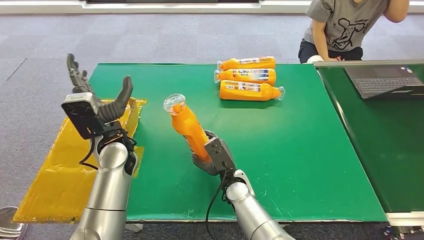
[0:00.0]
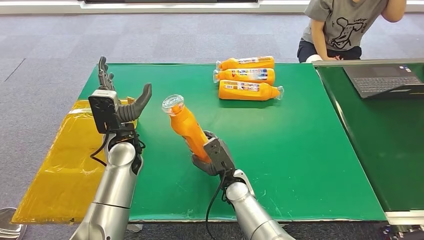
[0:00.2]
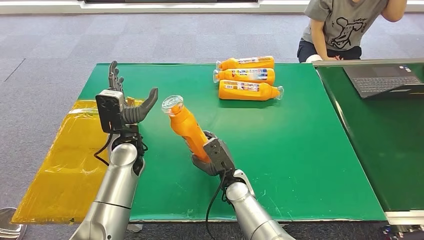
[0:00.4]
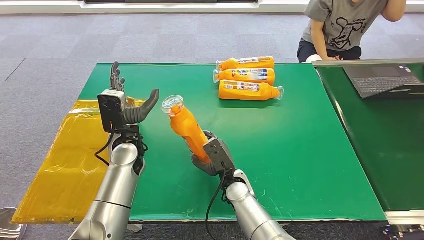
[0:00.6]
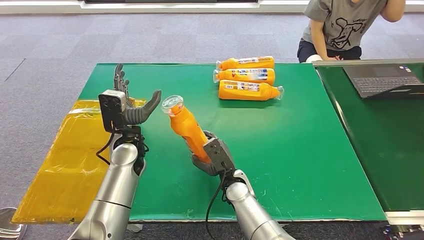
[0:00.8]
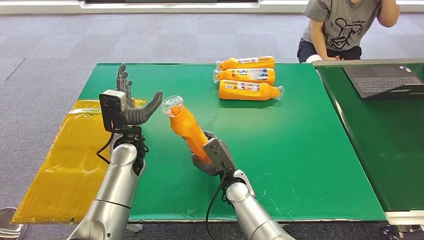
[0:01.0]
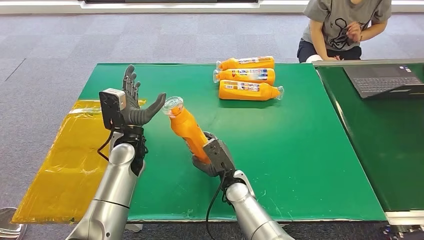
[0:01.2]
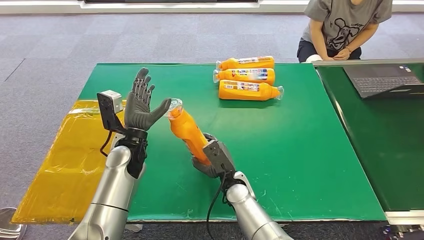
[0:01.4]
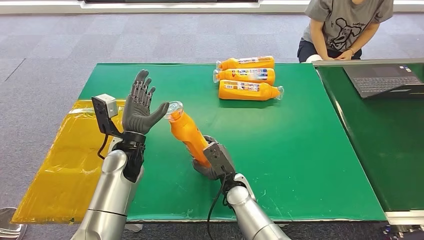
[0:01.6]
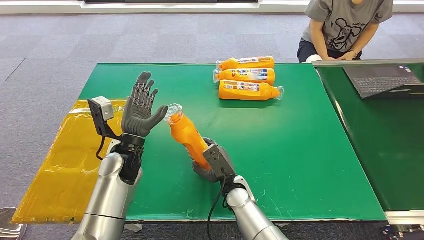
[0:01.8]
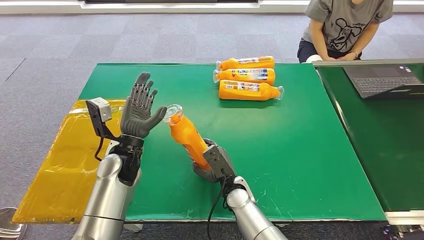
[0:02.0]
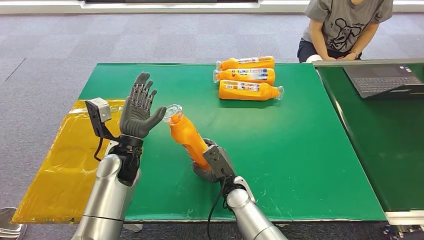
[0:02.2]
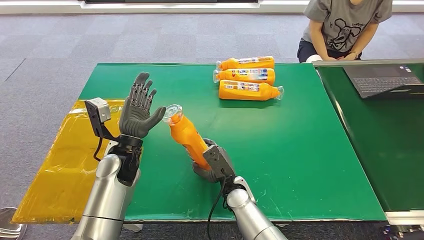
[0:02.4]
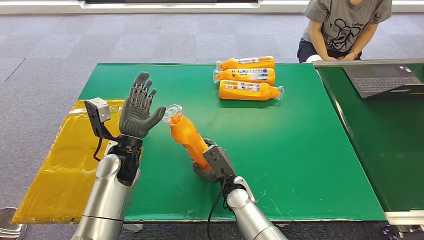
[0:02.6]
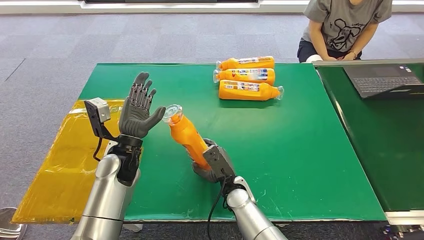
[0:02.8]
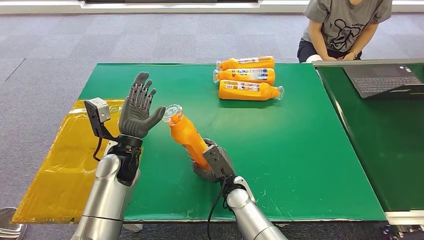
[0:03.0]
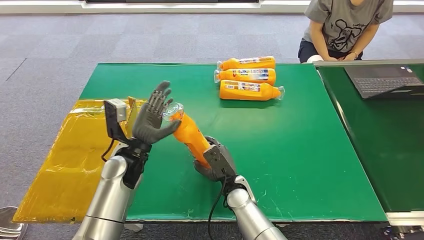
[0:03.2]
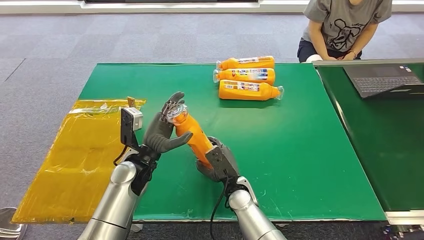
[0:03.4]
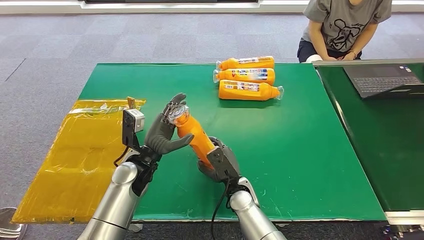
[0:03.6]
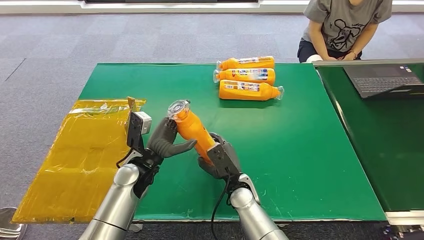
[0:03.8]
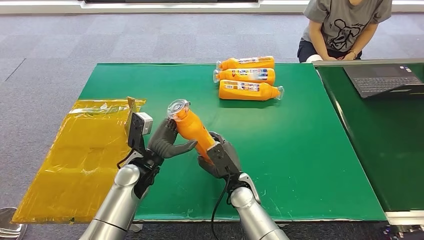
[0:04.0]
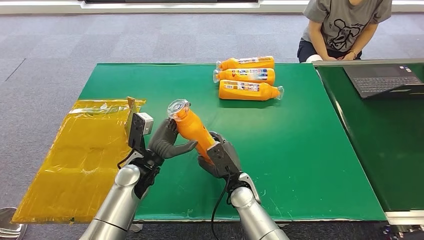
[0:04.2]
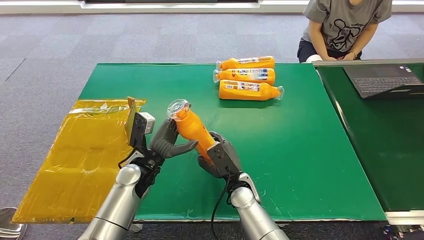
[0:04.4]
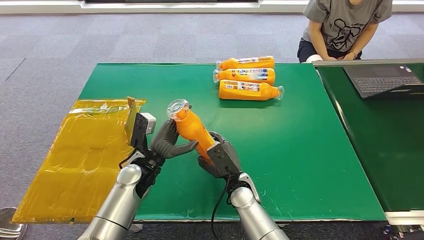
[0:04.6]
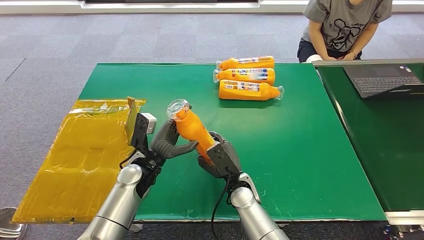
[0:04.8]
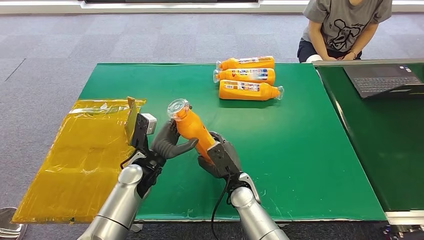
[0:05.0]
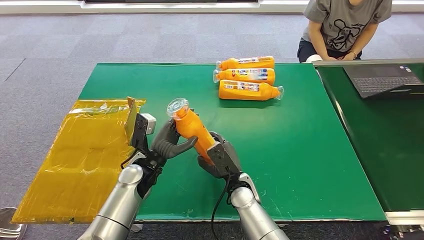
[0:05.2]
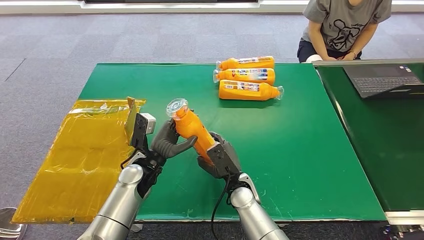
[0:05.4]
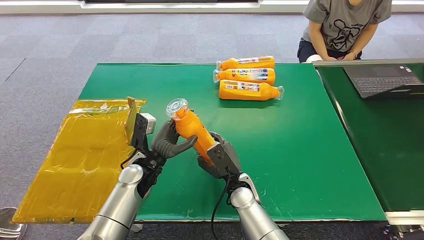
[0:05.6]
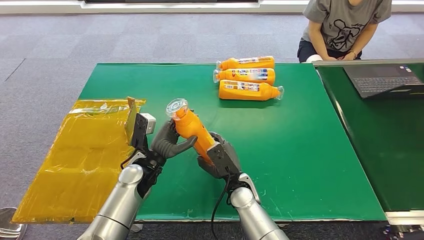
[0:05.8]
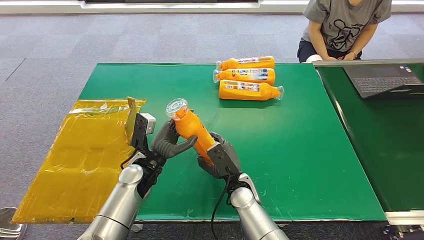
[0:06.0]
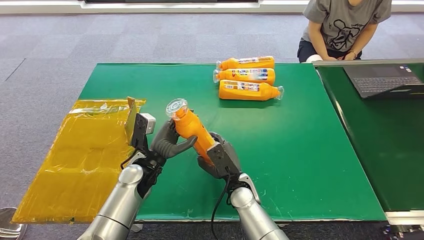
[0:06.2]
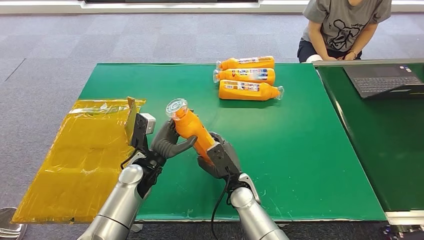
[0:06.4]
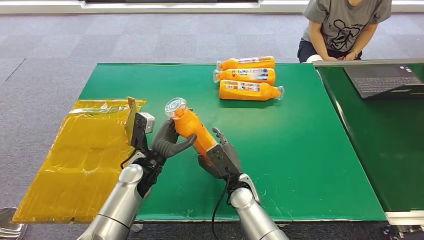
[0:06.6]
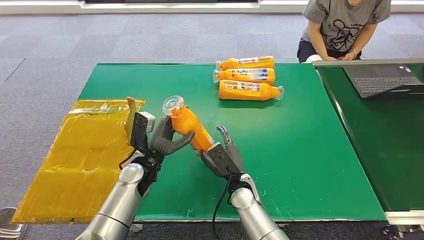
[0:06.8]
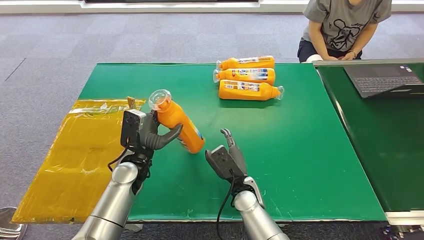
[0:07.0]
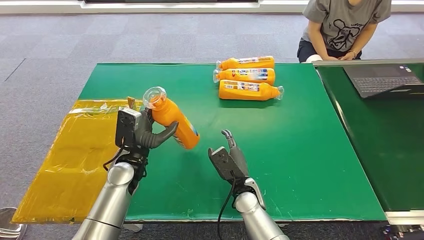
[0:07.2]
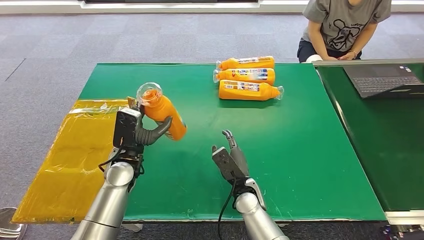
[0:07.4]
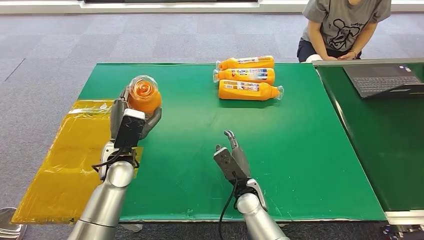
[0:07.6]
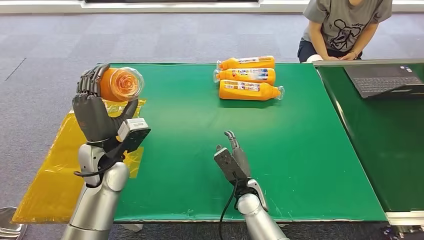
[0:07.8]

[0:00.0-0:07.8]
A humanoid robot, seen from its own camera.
Step, 0:00.0 to 0:07.6: Turn the bottle to the front side.
0:01.6 to 0:03.2: The hands move only a little.
0:03.2 to 0:04.6: The hands stay close to where they were, moving slightly.
0:04.6 to 0:06.2: Both hands stay put.
0:06.2 to 0:07.8: The left hand is displaced upward and to the left by some 10 cm.
